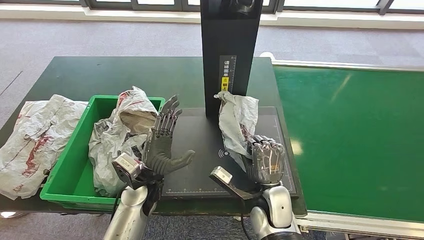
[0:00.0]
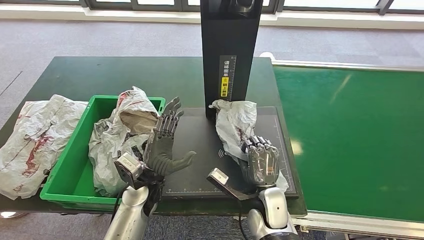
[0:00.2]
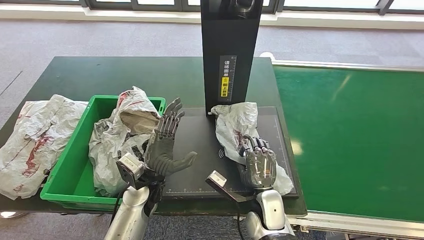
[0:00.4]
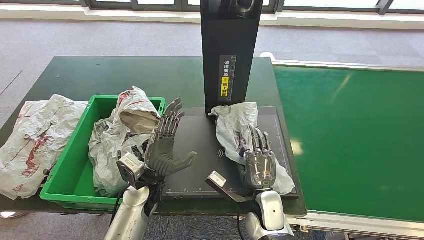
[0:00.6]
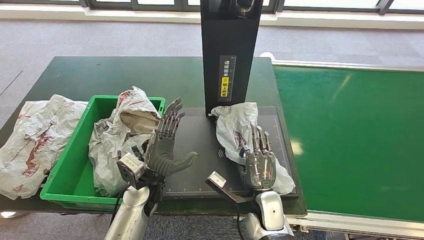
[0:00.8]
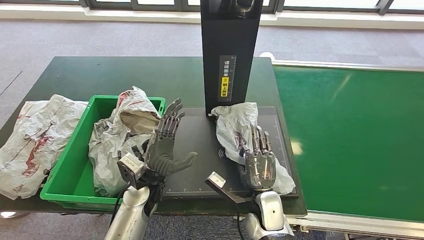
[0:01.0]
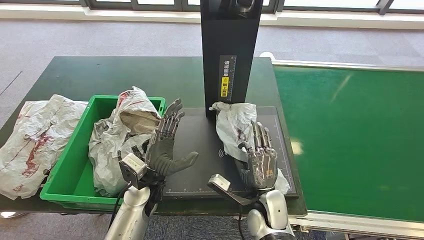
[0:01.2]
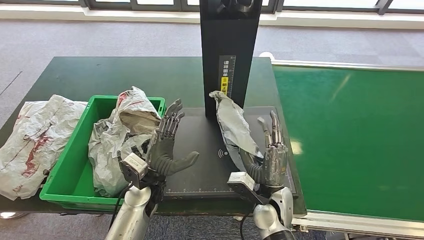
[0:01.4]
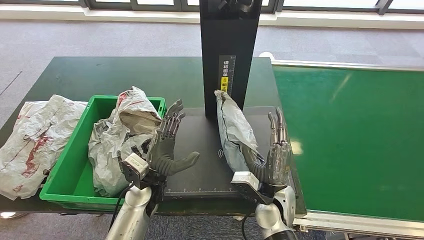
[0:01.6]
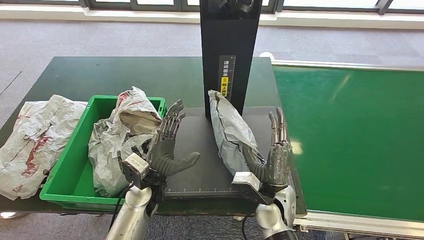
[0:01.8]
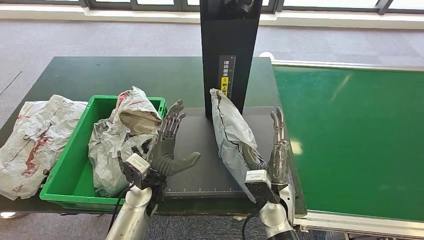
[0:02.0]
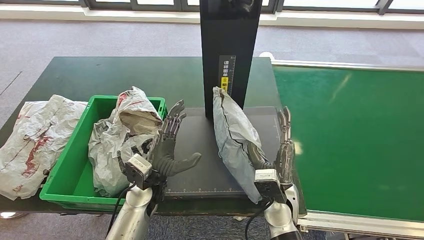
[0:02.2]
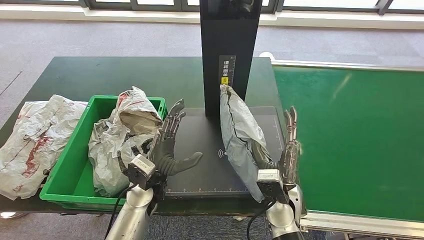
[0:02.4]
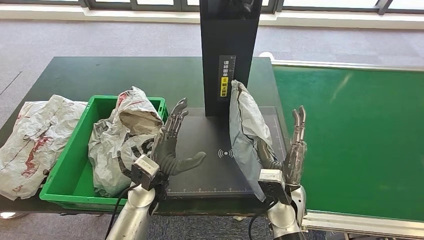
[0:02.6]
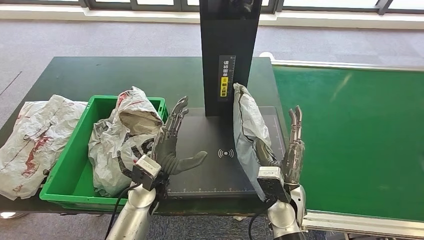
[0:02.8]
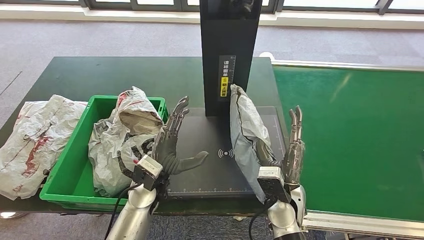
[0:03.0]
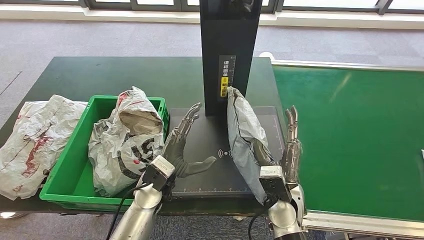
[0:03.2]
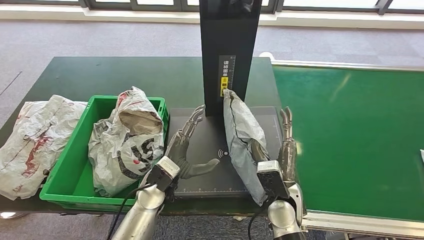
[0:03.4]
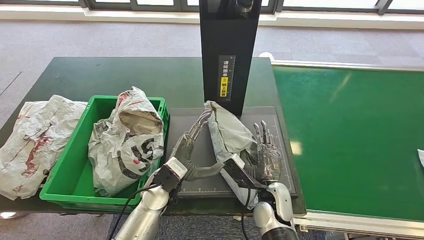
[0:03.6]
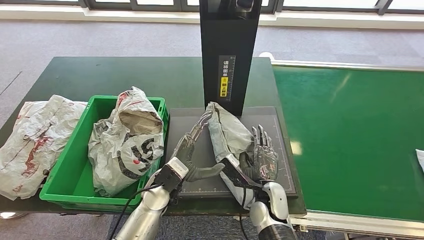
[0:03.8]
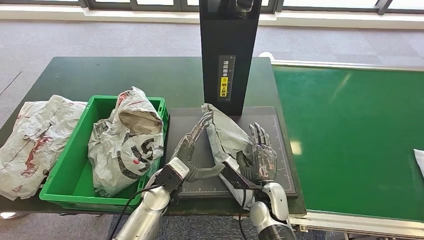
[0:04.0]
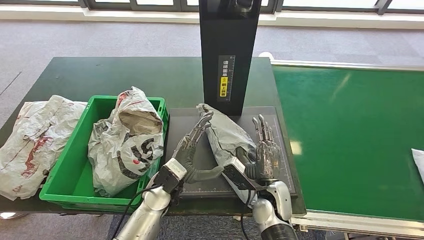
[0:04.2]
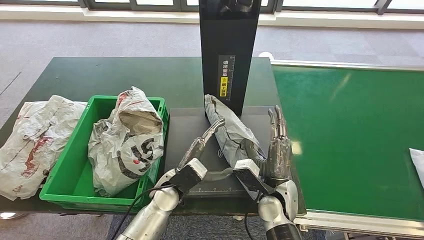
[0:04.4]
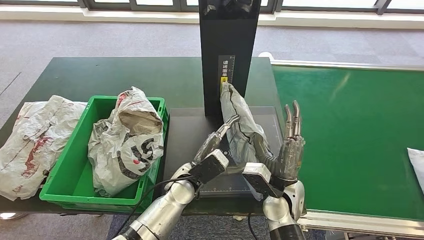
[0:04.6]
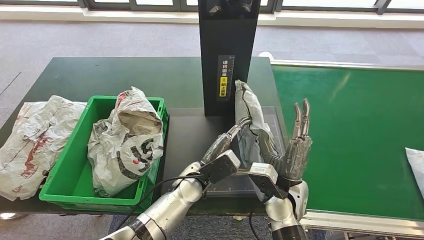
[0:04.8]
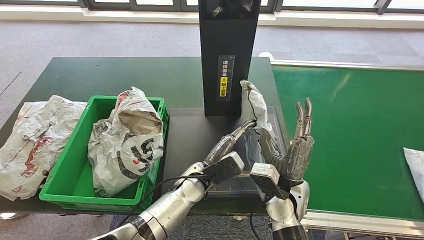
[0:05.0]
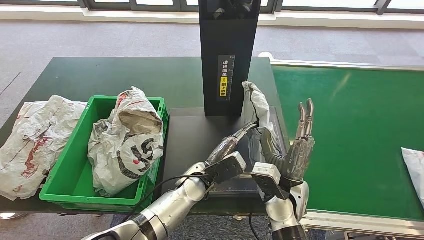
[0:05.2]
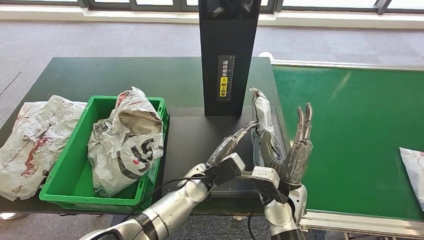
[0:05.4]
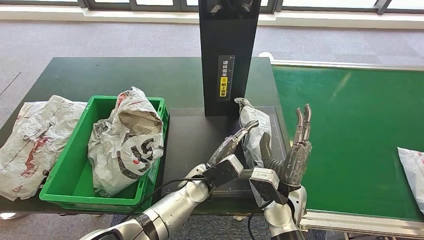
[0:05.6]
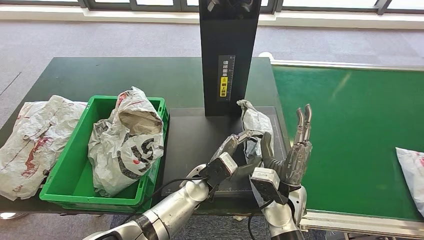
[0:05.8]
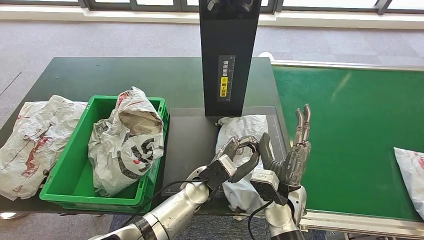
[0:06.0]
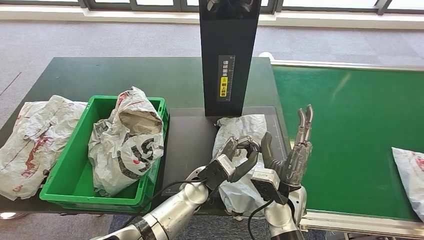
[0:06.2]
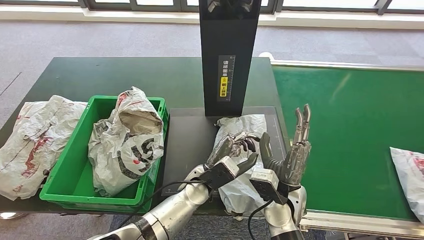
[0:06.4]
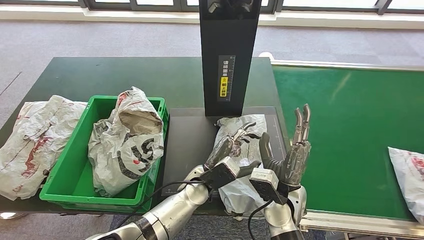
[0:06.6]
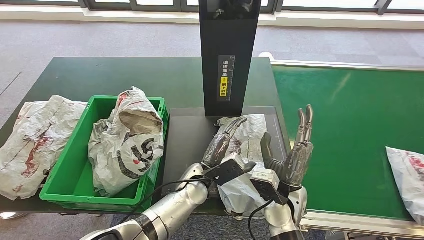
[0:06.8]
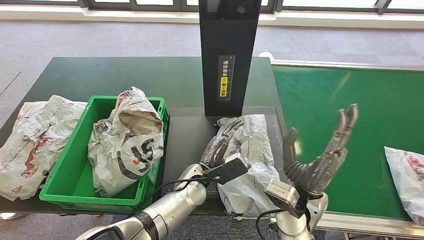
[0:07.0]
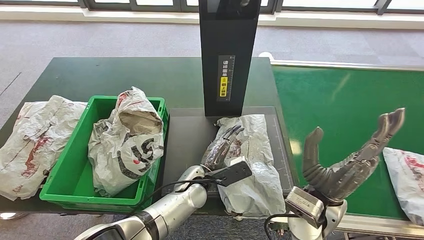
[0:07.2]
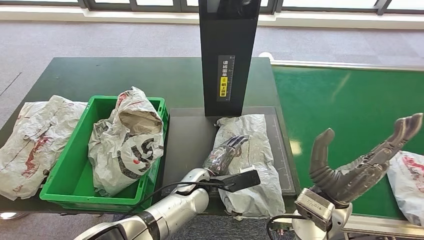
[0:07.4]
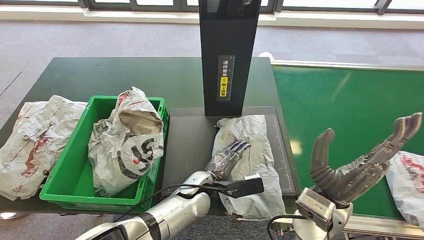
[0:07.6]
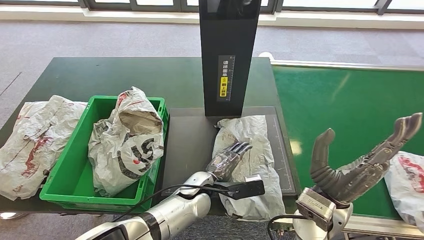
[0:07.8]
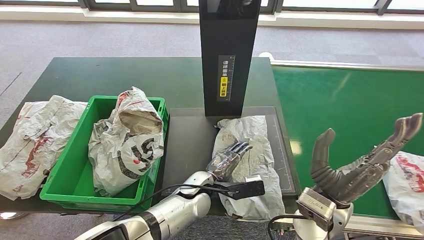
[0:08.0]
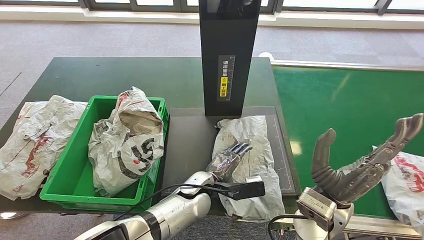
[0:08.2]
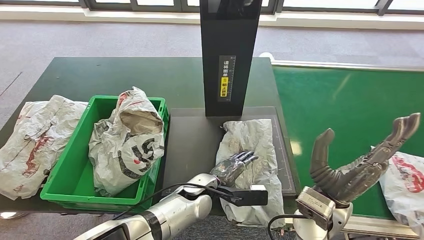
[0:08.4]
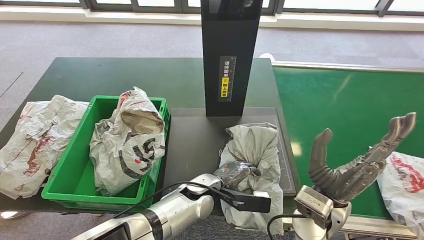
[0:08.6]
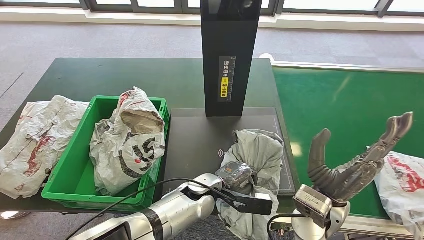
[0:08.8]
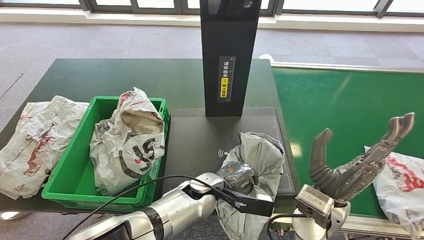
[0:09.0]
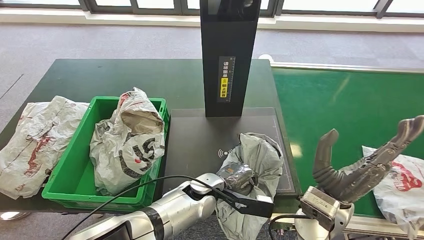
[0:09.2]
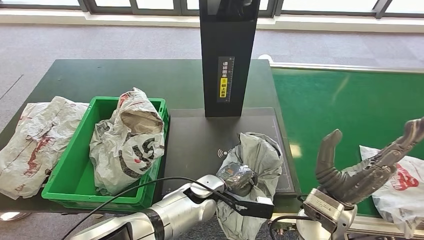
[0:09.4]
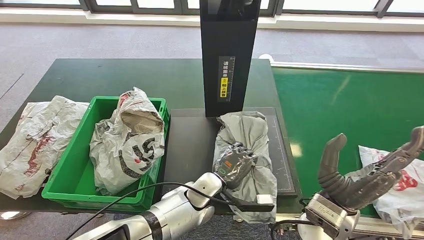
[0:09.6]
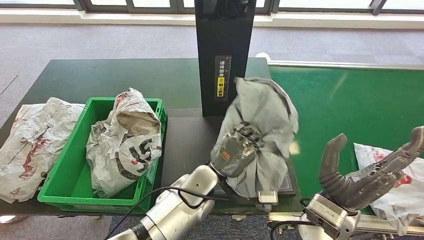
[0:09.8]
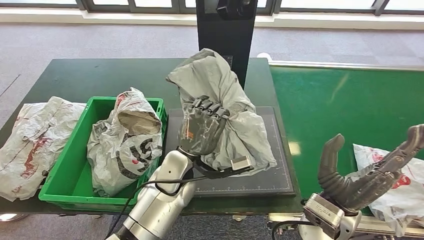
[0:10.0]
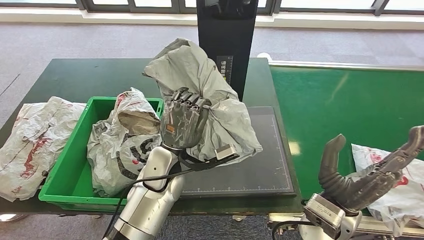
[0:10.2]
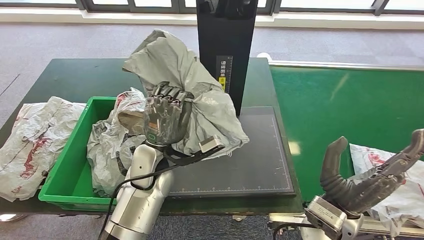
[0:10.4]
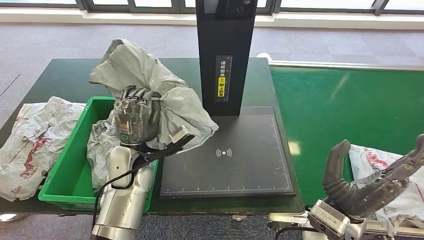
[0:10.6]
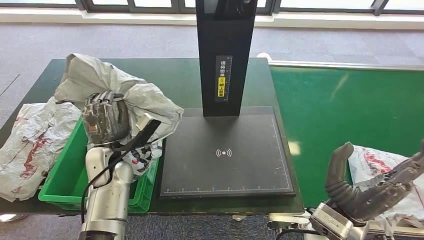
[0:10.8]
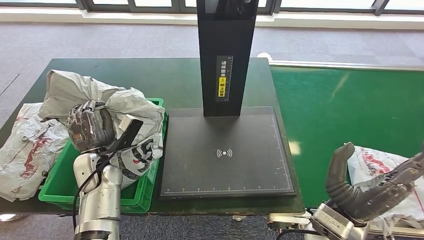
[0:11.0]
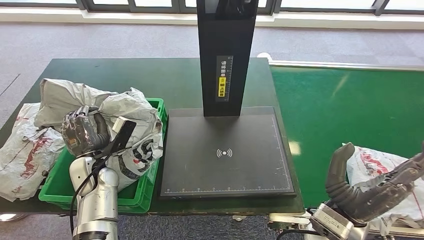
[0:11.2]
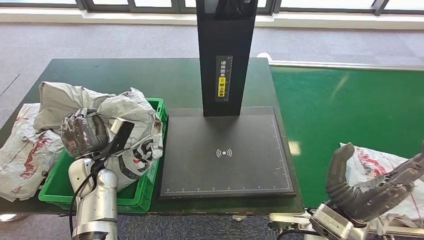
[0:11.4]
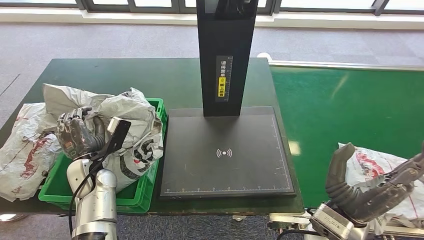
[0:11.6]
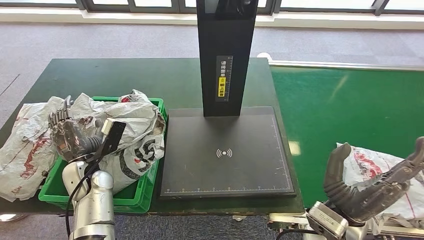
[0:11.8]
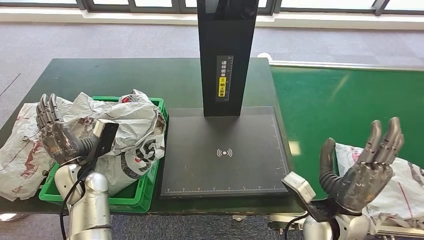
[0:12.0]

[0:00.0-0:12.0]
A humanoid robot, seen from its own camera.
Step, 0:00.0 to 0:06.2: Place the parcel onto the inbound machine.
Step, 0:06.4 to 0:10.0: Pick up the parcel from the inbound machine.
0:01.6 to 0:03.0: The hands make only small movements.
0:03.0 to 0:04.4: The left hand moves about 5 cm.
0:04.4 to 0:06.0: The left hand travels to the right by approximately 10 cm.
0:06.0 to 0:07.6: The right hand travels upward by roughly 10 cm.

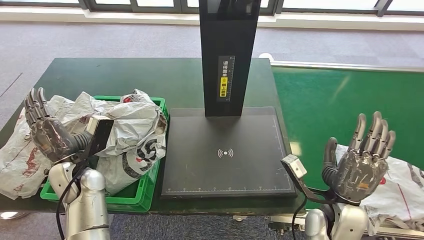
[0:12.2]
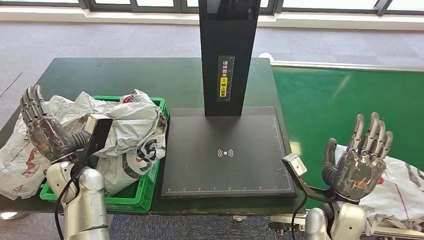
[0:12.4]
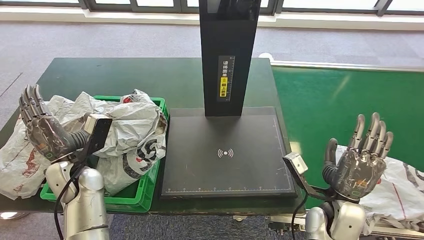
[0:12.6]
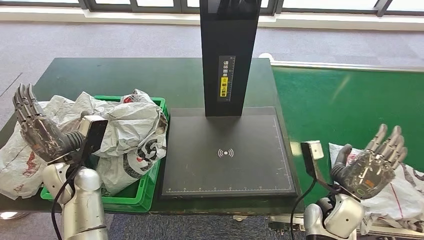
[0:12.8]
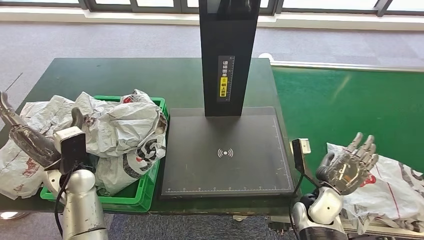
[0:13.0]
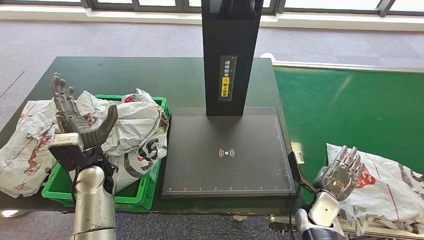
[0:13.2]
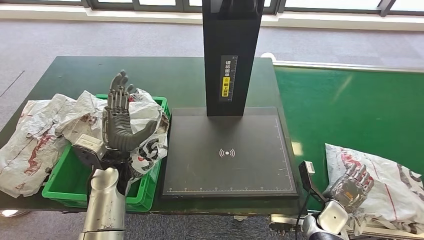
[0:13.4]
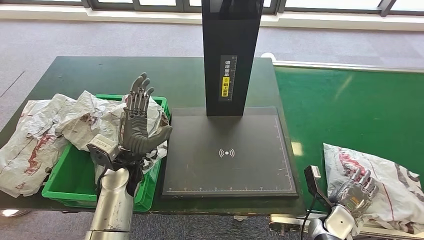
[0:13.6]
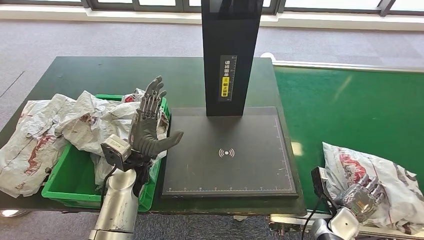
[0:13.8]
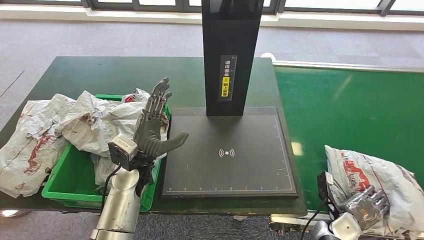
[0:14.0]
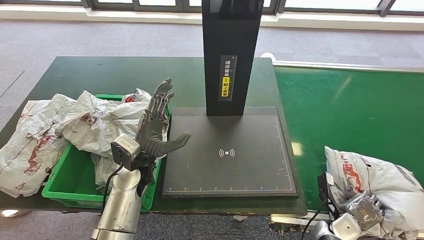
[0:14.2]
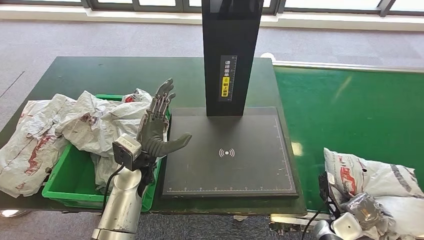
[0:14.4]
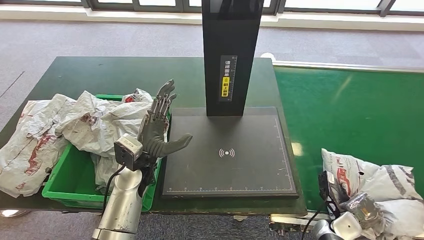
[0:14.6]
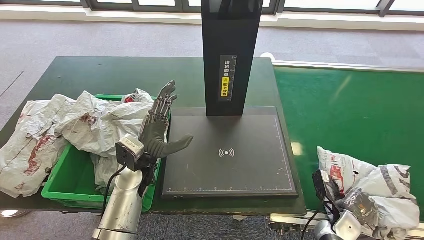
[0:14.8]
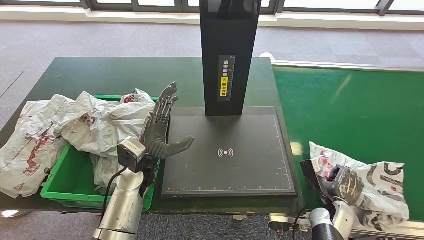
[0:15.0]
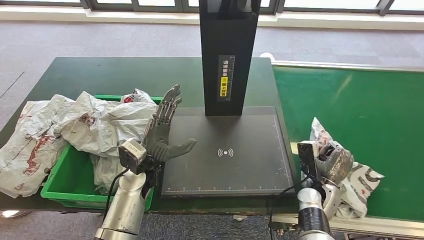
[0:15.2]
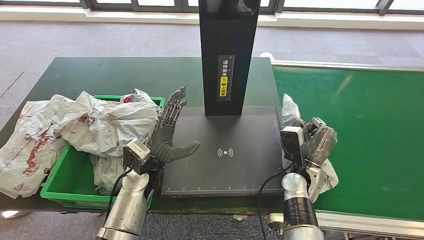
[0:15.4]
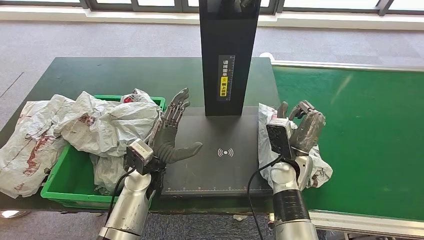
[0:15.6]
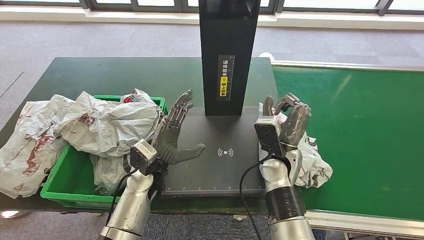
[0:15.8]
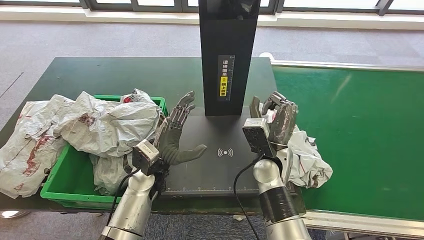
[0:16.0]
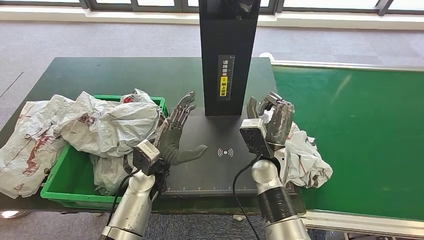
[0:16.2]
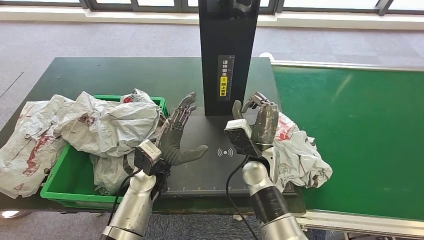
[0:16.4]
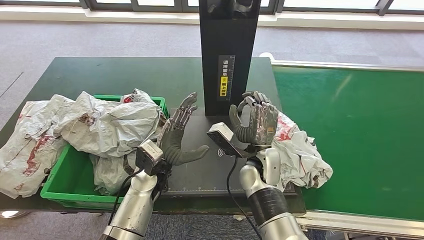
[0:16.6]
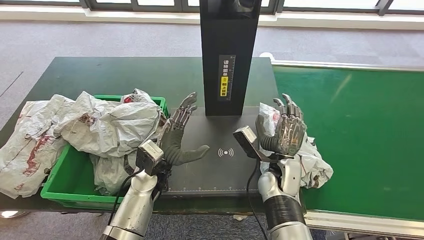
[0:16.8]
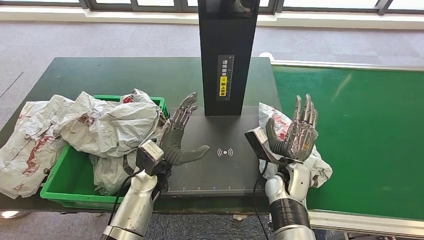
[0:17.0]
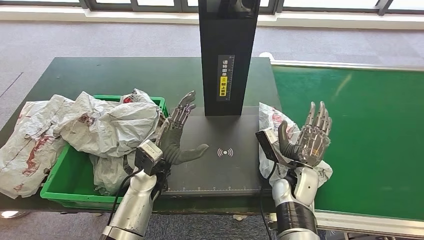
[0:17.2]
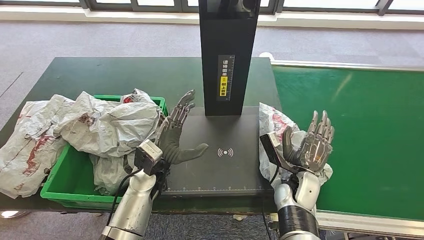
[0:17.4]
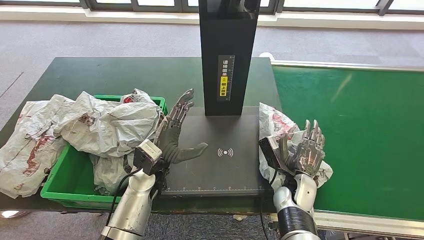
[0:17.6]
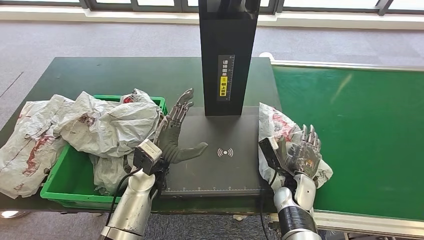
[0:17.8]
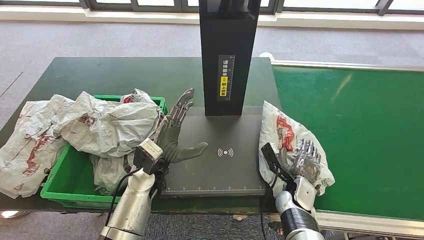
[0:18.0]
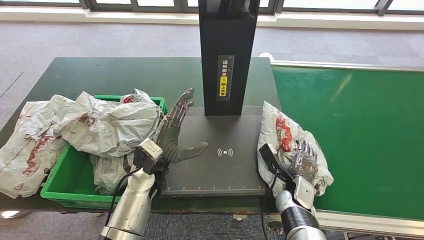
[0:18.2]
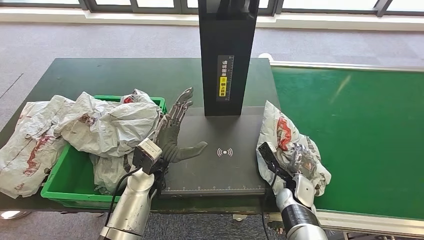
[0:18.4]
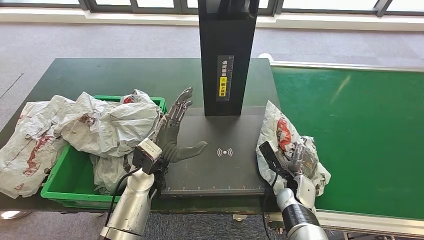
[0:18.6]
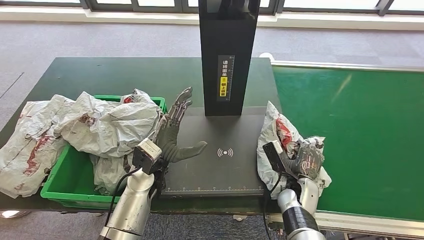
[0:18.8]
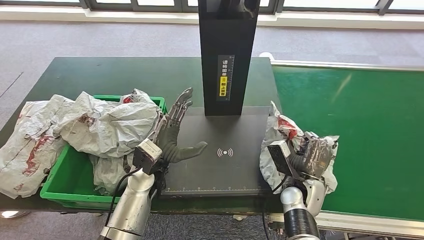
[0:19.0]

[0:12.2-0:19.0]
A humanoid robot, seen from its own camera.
0:15.0 to 0:16.2: The right hand moves to the left and upward, some 25 cm.
0:16.2 to 0:17.6: The right hand shifts roughly 15 cm downward and to the right.
